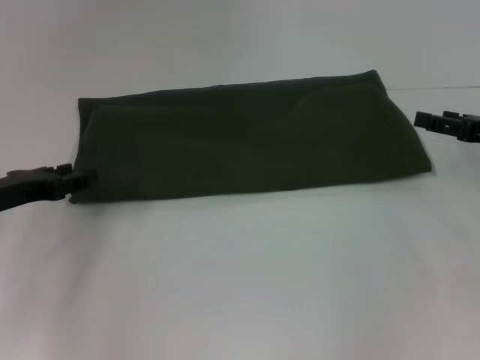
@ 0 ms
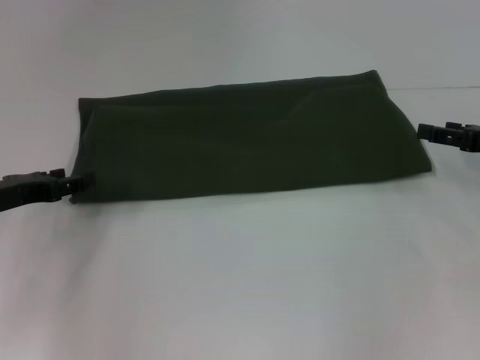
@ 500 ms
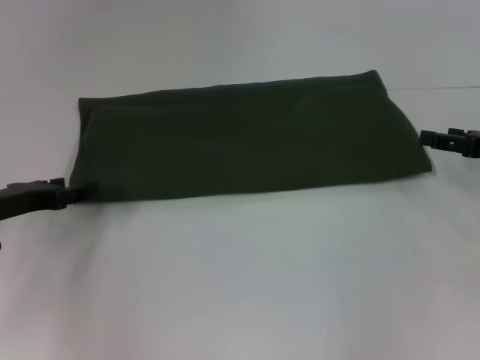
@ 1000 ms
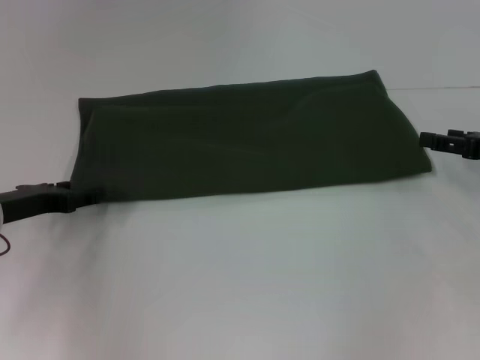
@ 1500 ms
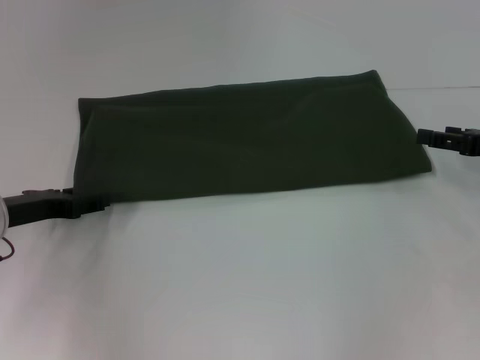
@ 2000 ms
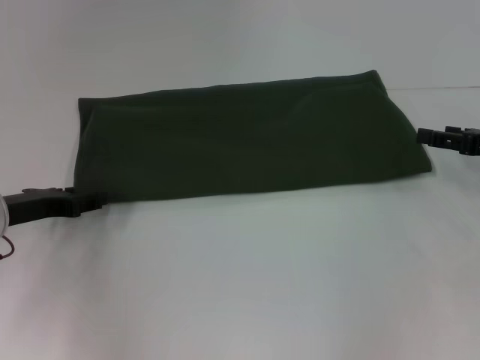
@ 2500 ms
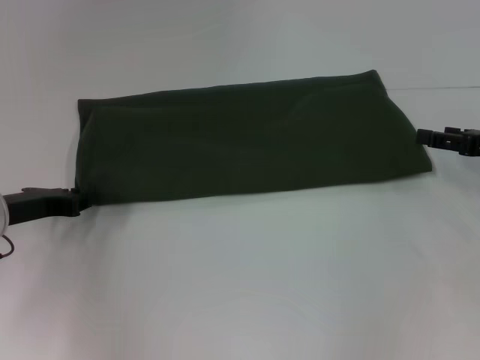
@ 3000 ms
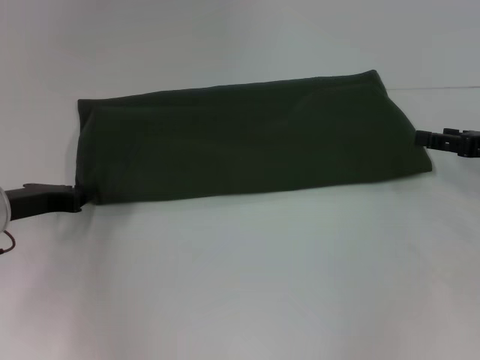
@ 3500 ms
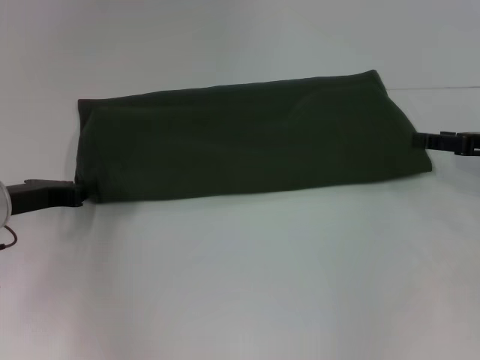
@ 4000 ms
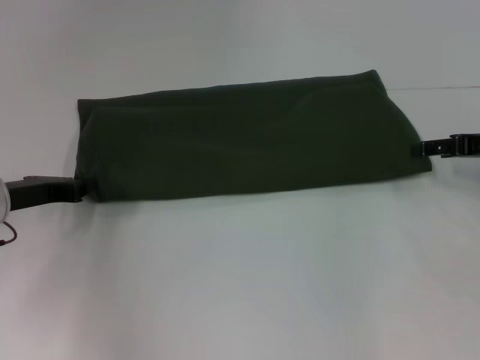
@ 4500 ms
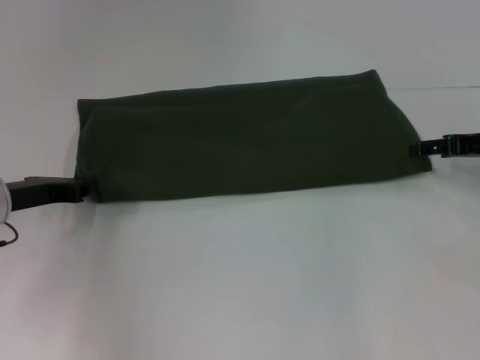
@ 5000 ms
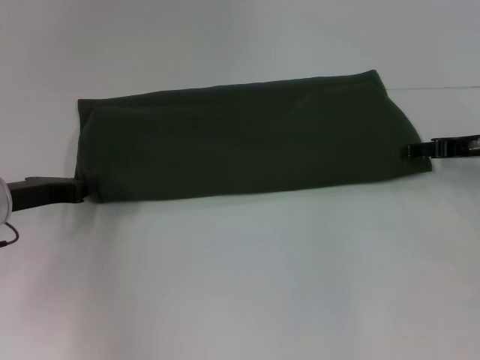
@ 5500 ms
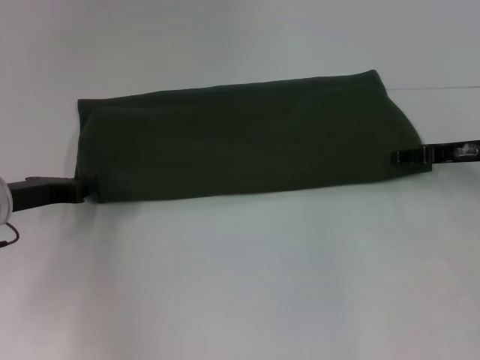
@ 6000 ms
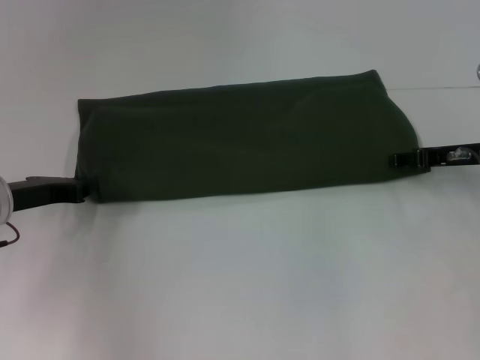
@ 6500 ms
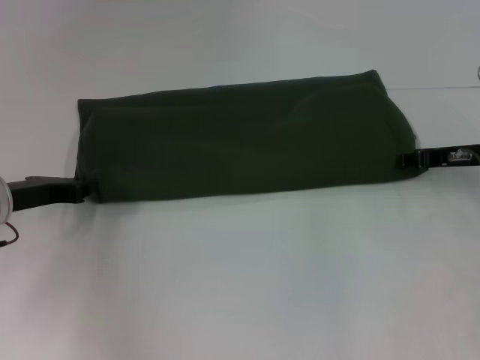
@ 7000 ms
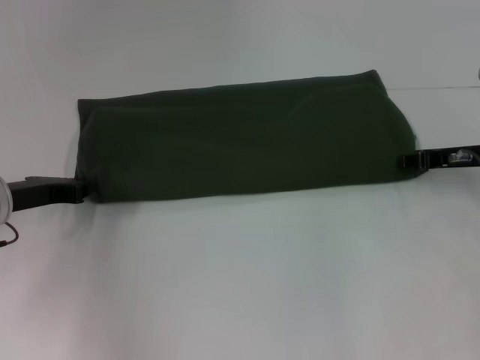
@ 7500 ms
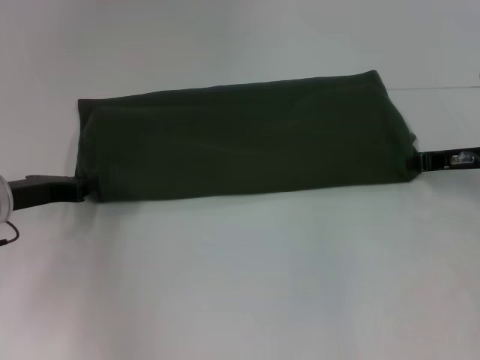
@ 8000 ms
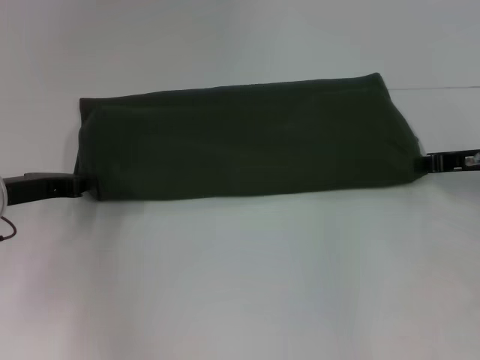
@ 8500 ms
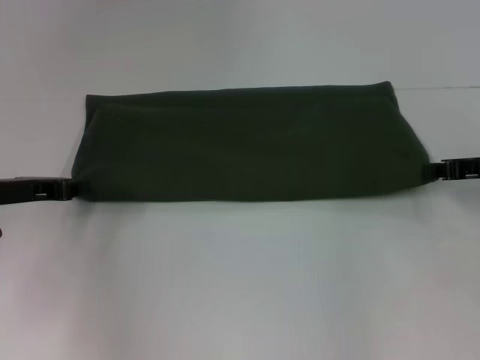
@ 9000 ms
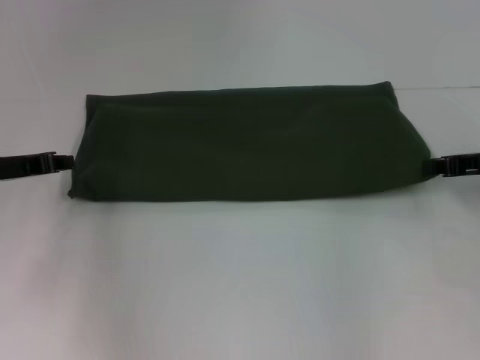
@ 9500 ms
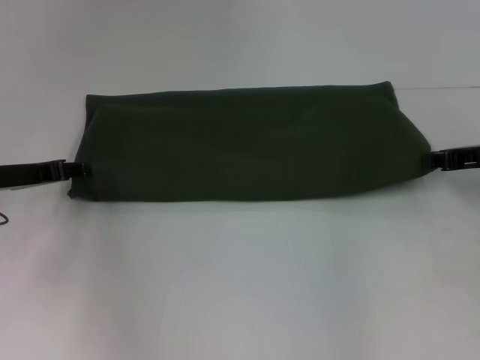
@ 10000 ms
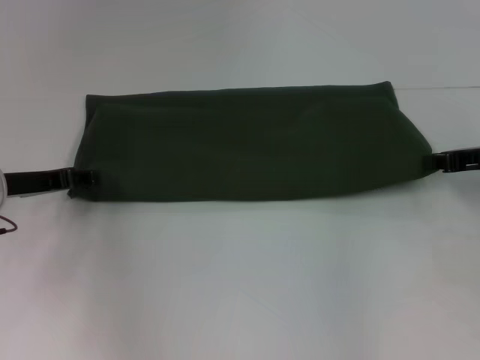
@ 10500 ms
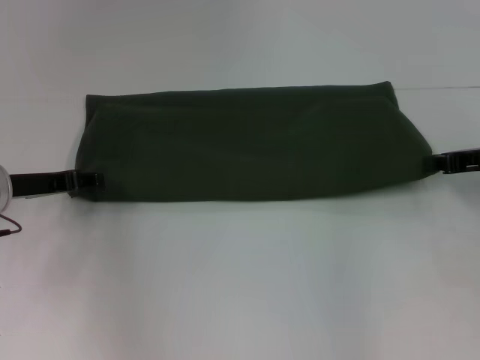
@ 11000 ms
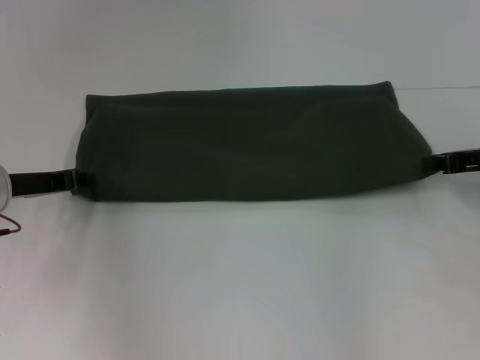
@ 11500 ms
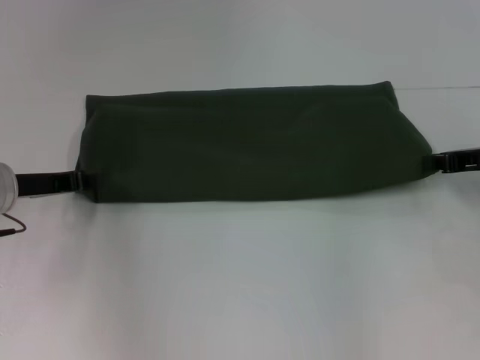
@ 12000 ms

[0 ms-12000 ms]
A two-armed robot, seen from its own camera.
0 ms to 2000 ms: The grippers make only small movements.
2000 ms to 4000 ms: The left gripper closes.
4000 ms to 6000 ms: The right gripper changes place by roughly 5 cm.
6000 ms to 8000 ms: The right gripper closes up.
8000 ms to 12000 ms: The grippers stay close to where they were, moving slightly.

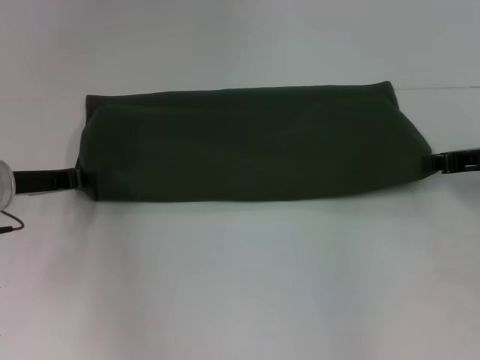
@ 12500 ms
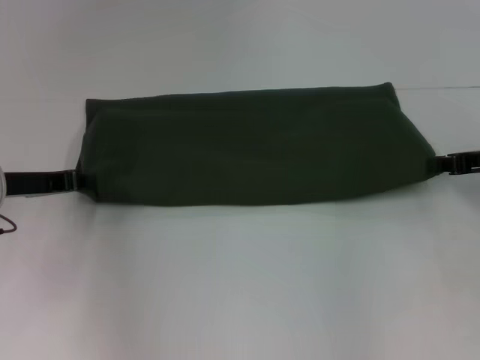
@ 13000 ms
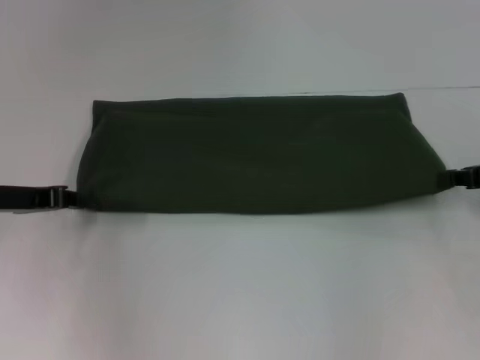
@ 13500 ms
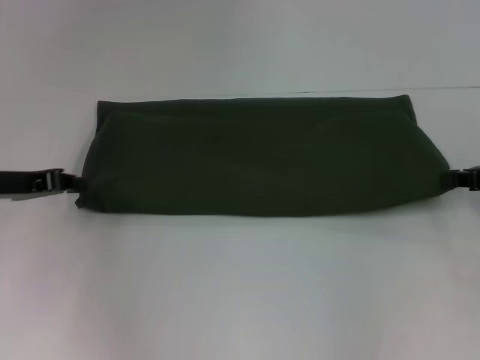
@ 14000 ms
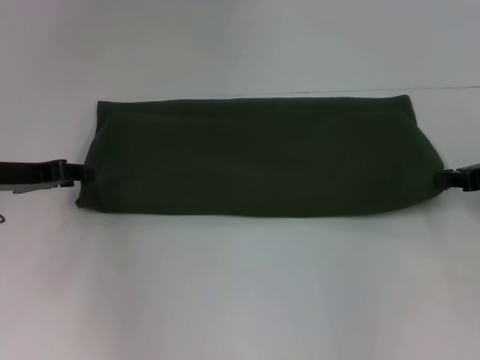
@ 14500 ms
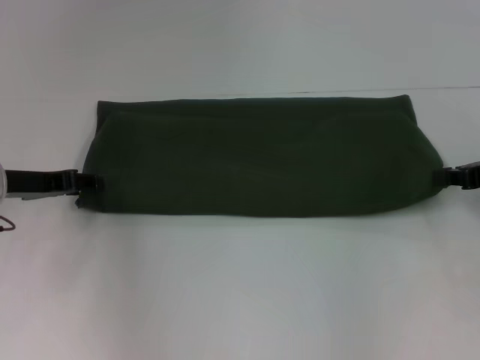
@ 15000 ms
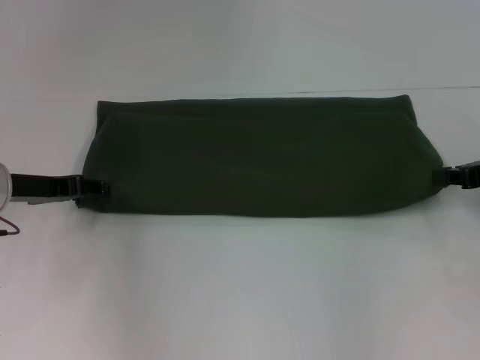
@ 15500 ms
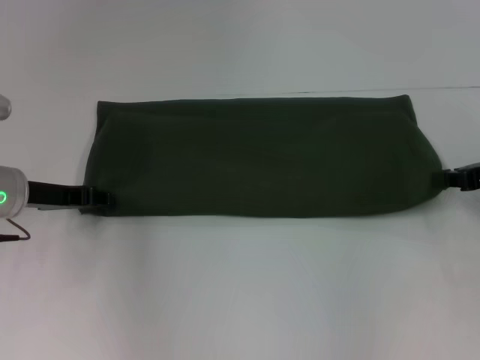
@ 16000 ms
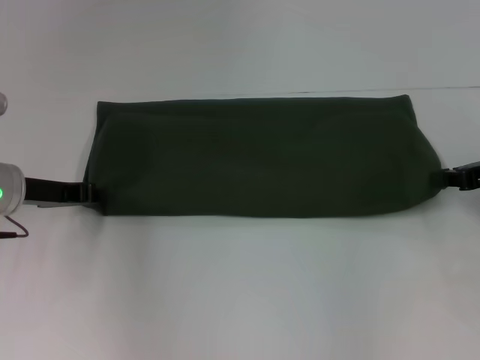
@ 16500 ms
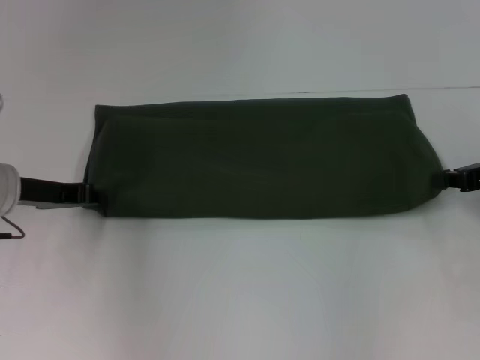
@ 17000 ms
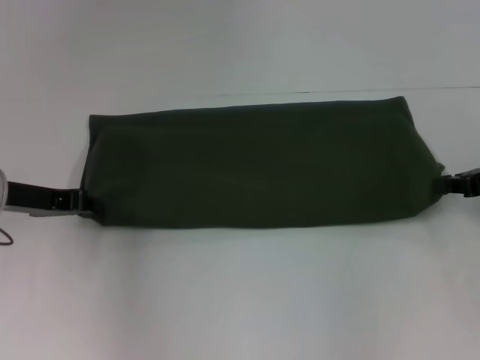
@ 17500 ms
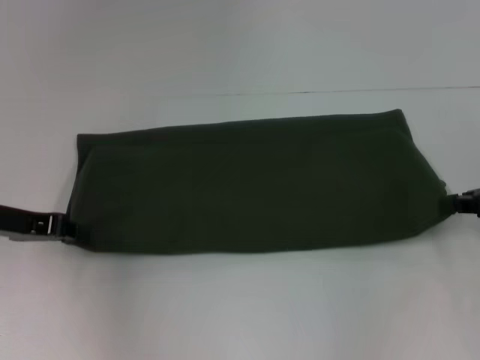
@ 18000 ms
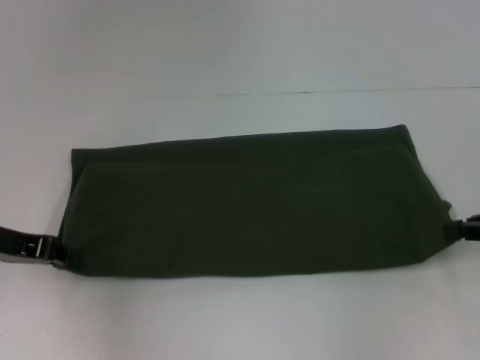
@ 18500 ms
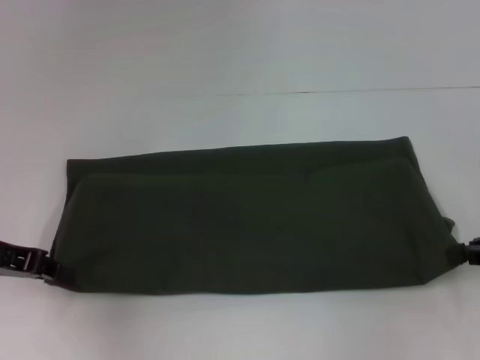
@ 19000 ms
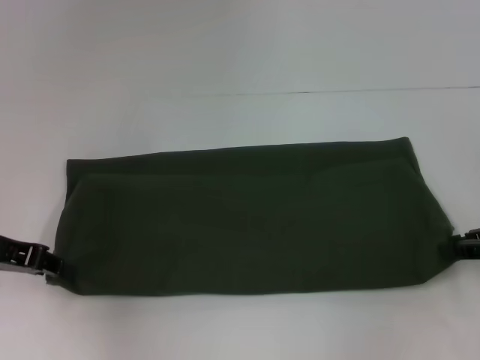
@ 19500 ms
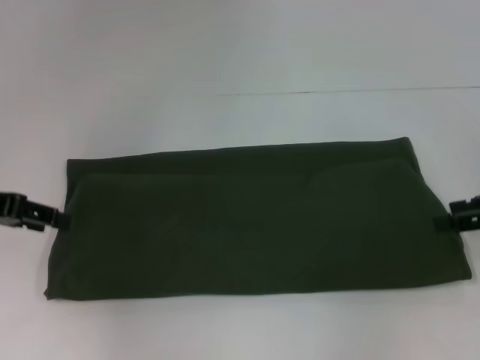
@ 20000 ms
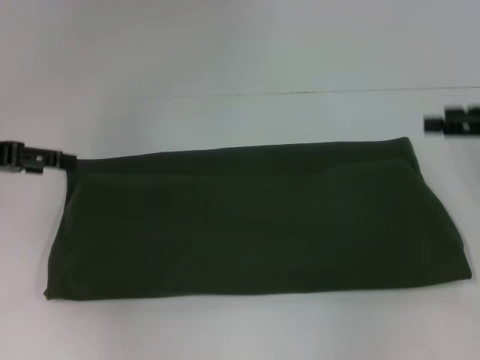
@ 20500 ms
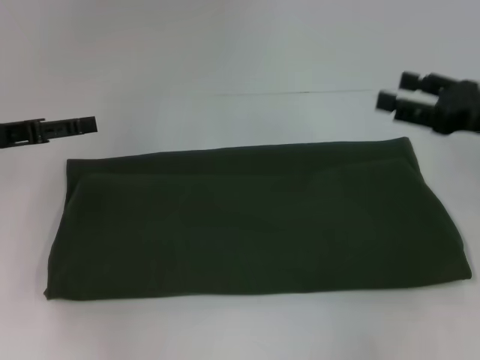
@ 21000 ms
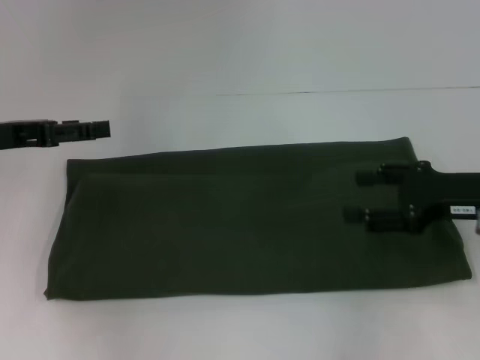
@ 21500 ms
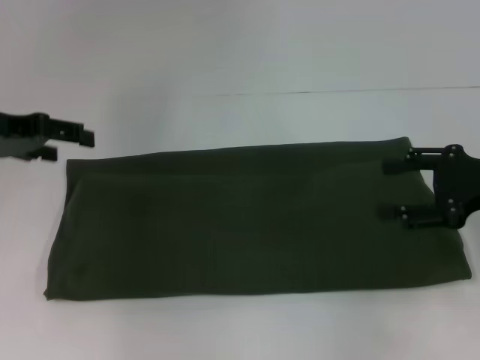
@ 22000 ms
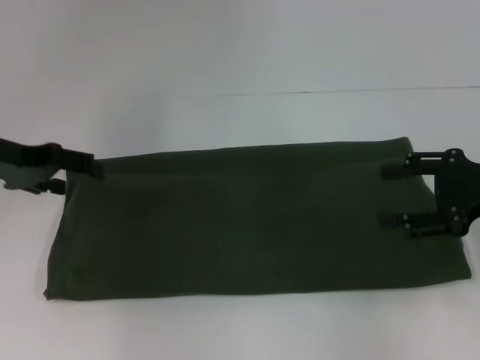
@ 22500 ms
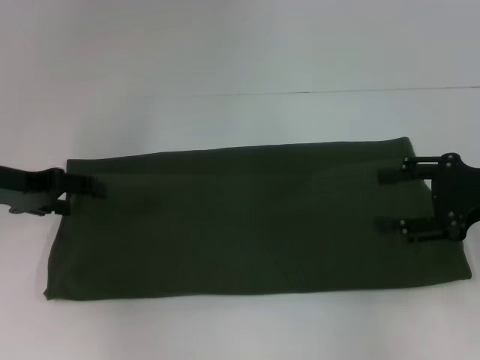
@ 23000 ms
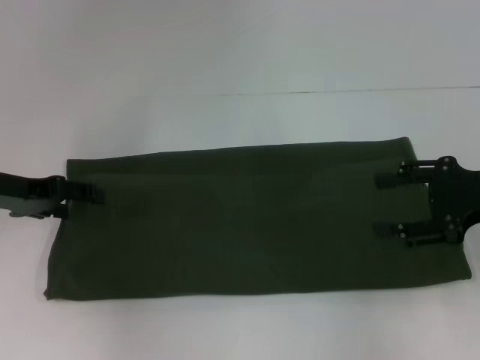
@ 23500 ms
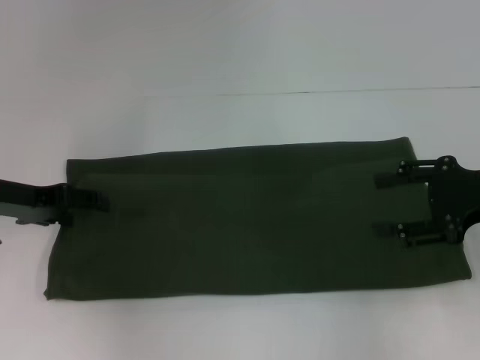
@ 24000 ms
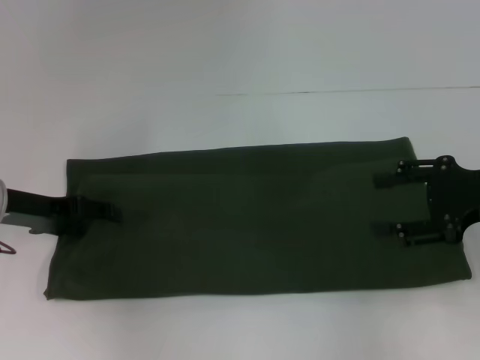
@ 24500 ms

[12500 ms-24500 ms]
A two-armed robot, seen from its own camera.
Step, 12500 ms to 20000 ms: Pull the clothes with your left hand.
Step, 12500 ms to 20000 ms: Pull the clothes with your right hand.
12500 ms to 16500 ms: The grippers move only a little.
16500 ms to 18500 ms: The left gripper travels backward by some 5 cm.
18500 ms to 20500 ms: The two grippers go roughly 5 cm upward. The right gripper opens; the left gripper opens its fingers.
22500 ms to 24500 ms: The left gripper moves downward, about 5 cm.

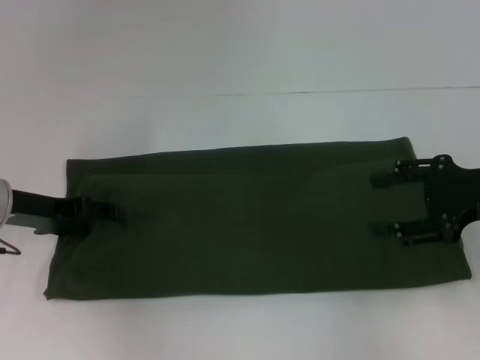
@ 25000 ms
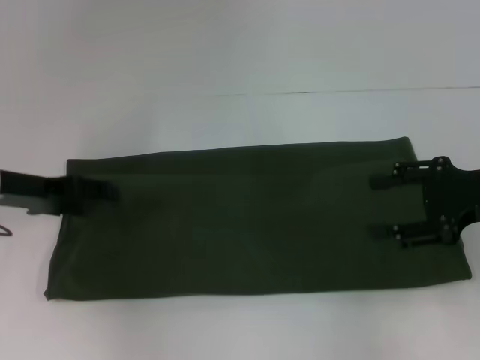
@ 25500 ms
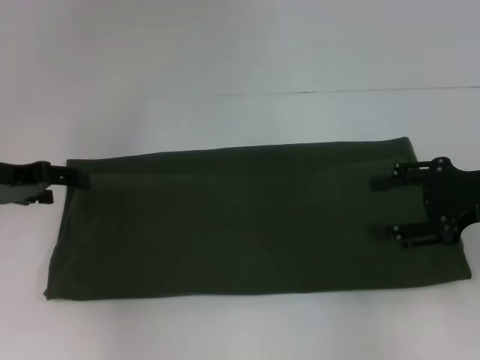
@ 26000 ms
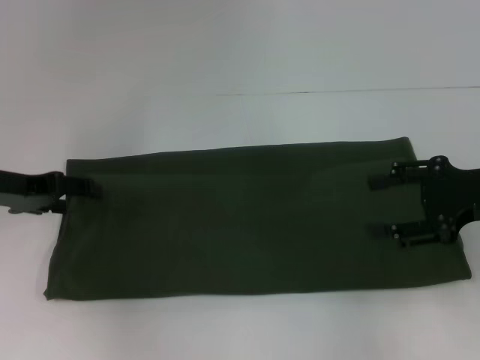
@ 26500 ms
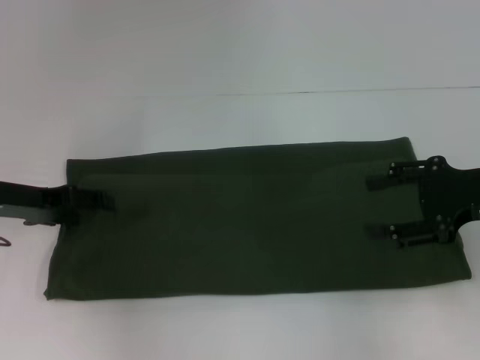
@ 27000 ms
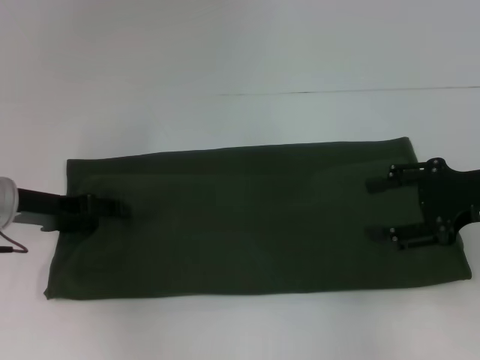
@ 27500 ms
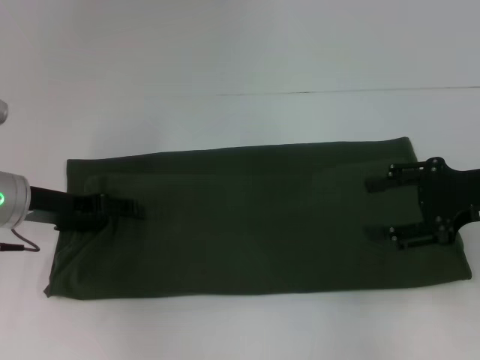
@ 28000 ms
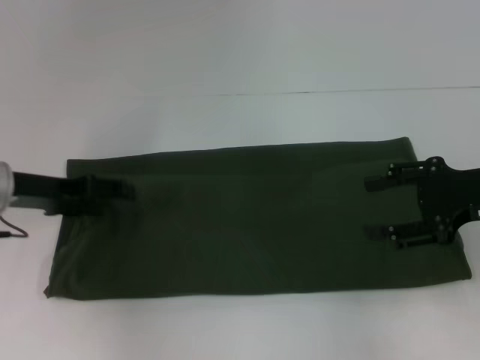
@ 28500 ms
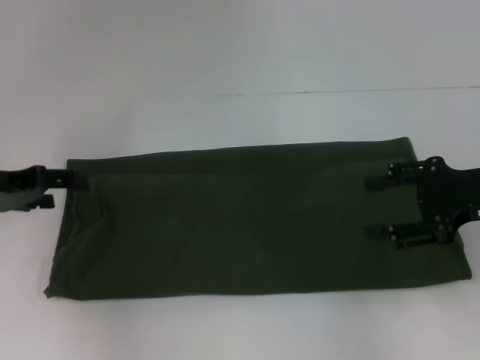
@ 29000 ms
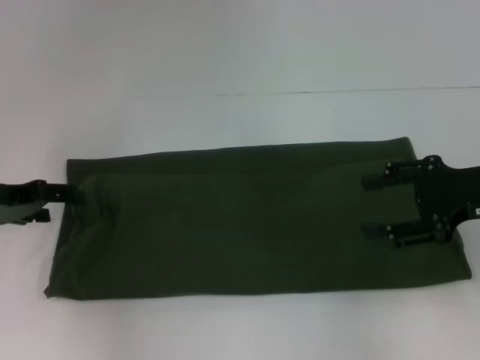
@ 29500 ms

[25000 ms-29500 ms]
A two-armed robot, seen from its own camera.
25000 ms to 29500 ms: There are only small adjustments of the grippers.
